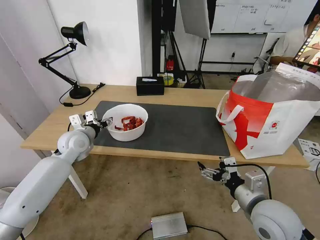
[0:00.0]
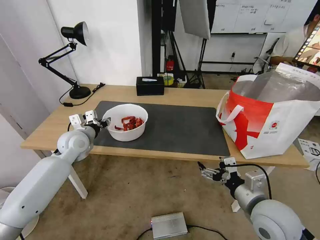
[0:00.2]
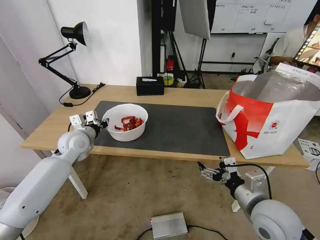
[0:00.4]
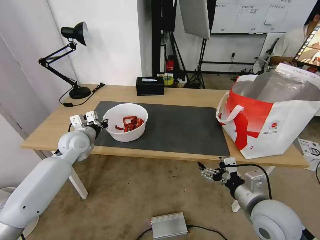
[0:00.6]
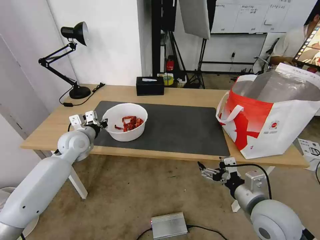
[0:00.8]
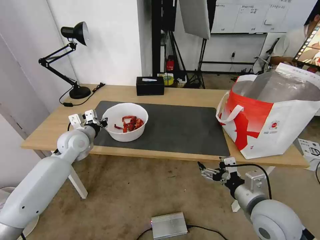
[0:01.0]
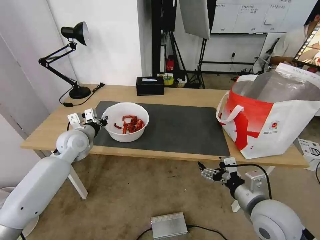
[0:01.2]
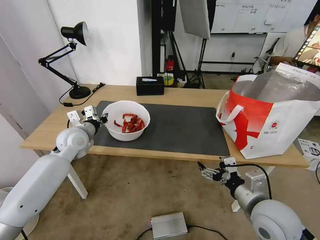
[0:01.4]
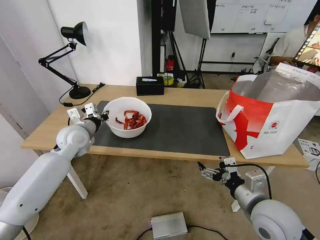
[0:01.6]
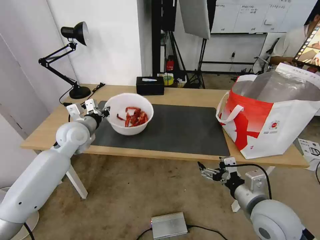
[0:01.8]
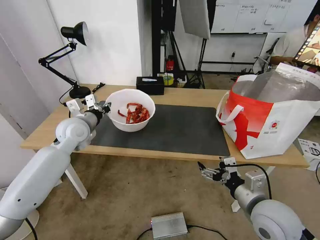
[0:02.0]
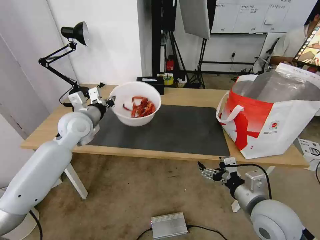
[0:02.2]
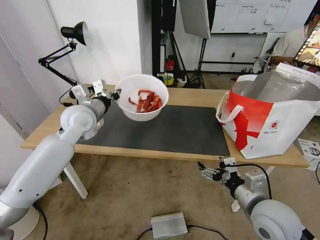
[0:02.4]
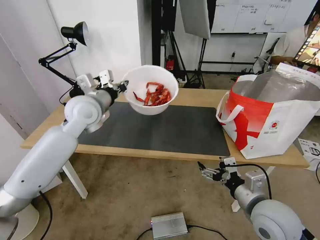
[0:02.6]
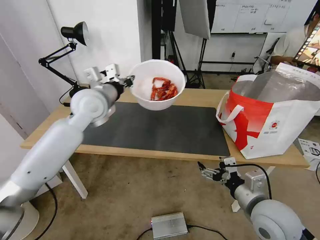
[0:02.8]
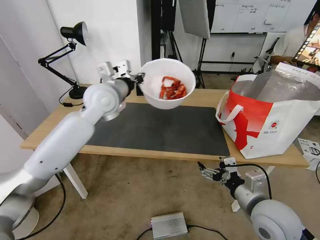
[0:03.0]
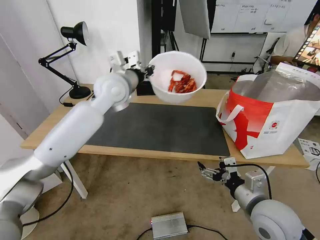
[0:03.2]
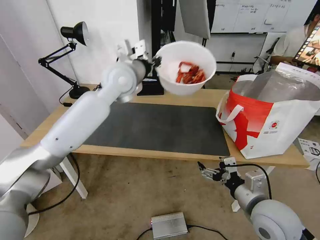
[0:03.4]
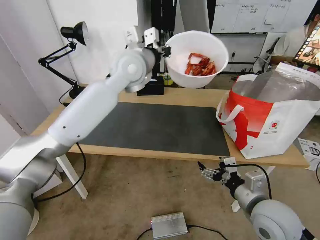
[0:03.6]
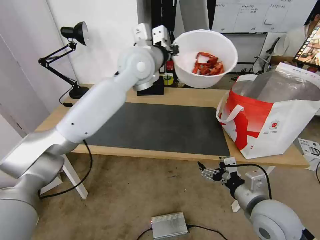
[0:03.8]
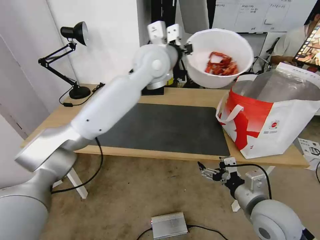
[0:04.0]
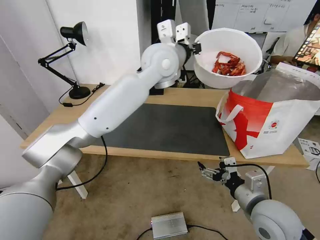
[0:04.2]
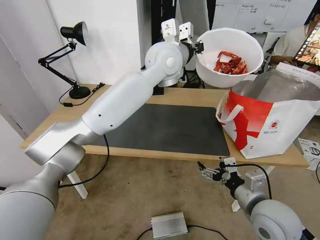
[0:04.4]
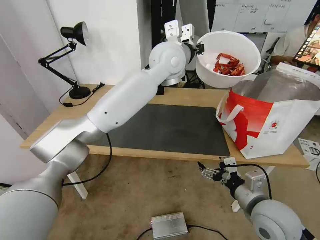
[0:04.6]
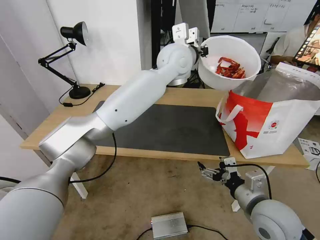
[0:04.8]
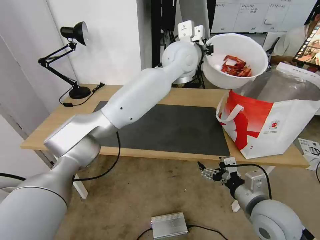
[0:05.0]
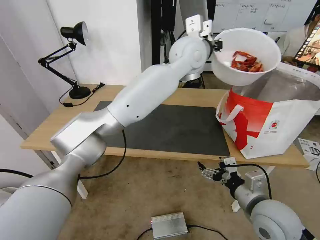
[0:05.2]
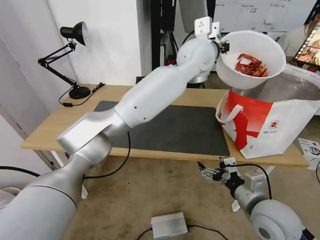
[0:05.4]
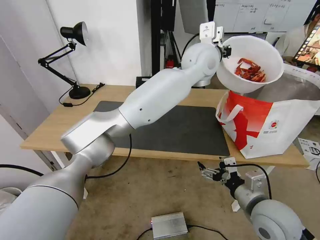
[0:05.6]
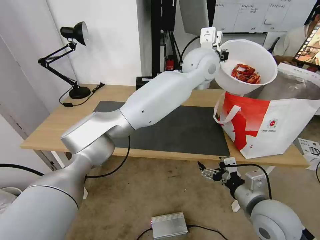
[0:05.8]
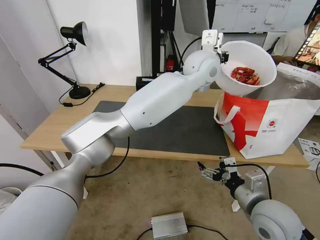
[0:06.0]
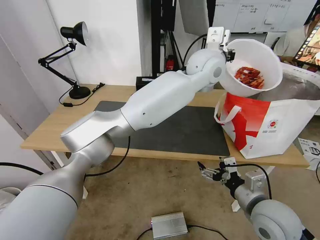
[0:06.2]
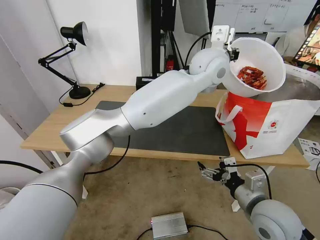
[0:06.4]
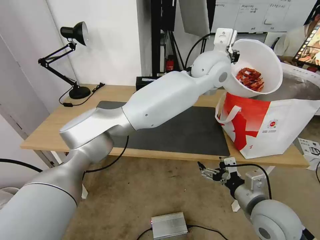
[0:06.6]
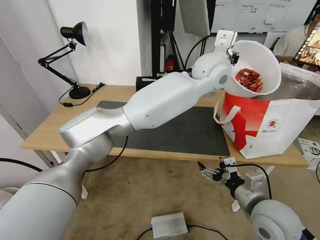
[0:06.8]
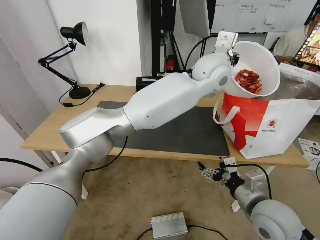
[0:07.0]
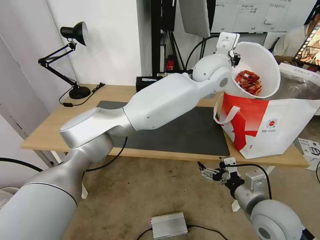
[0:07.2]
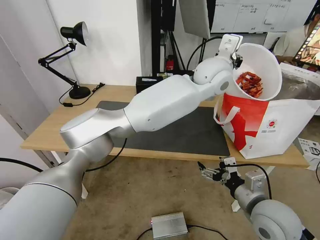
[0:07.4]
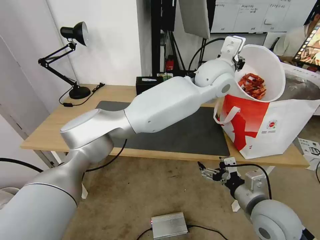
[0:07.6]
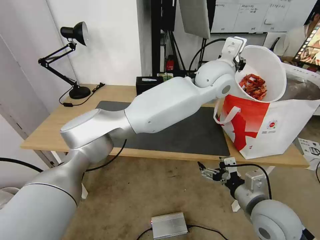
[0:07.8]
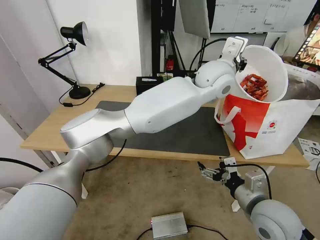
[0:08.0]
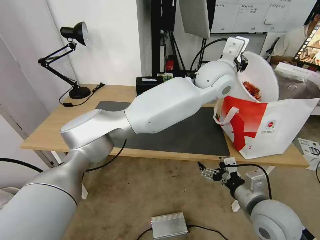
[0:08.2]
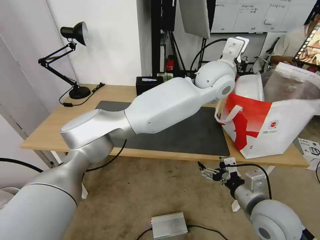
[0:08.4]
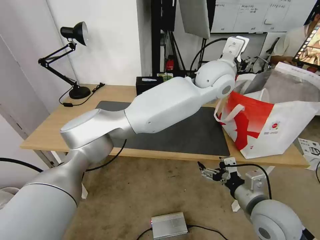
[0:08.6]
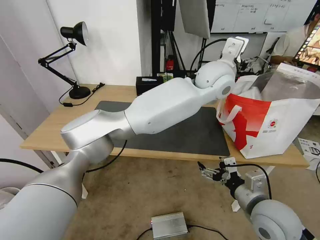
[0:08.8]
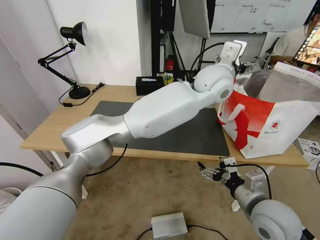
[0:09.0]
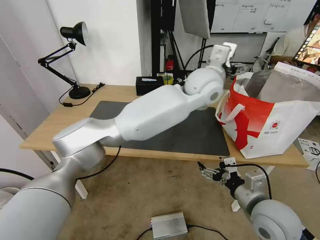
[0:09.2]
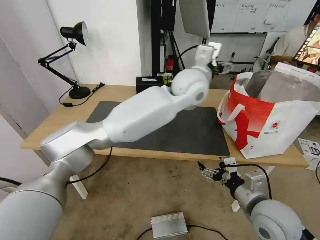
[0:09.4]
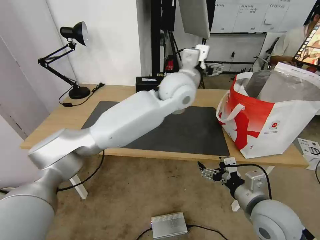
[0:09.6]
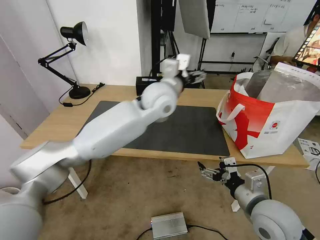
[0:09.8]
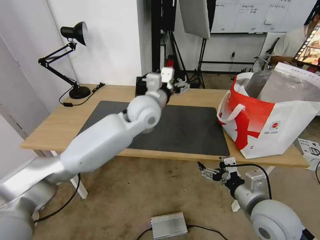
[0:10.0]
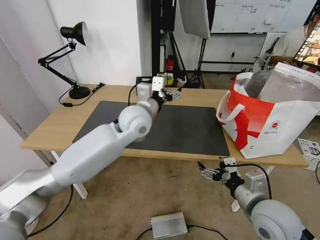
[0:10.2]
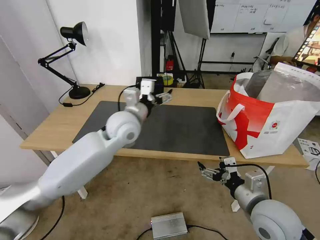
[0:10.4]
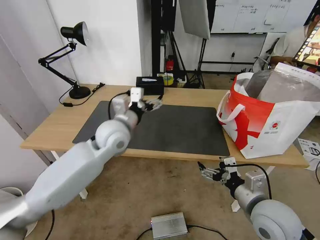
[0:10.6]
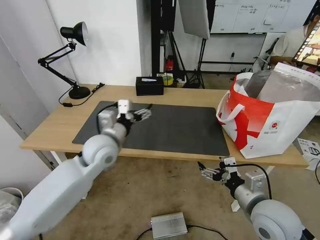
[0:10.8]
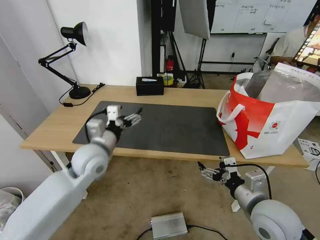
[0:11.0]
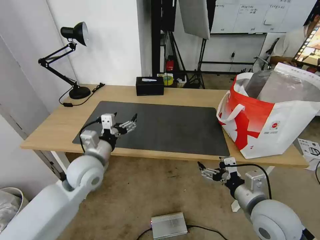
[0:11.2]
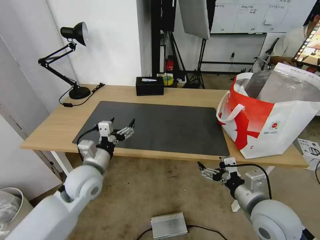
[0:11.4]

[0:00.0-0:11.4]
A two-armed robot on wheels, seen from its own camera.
Task of the whole recording: Pick up the trash from the table and place it into the takeout bag.
0.0 to 1.4 s: The left gripper closes up.
1.4 to 2.8 s: The left gripper goes some 15 cm upward and to the right.
2.8 to 4.2 s: The left gripper moves to the right and upward, roughly 20 cm.
4.2 to 5.6 s: The left gripper travels to the right by about 10 cm.
5.6 to 7.2 s: The grippers stay close to where they were, moving slightly.
7.2 to 8.6 s: The left gripper opens.
8.6 to 10.0 s: The left gripper is displaced to the left and downward by some 20 cm, and opens.
10.0 to 11.4 s: The left gripper travels to the left, backward and downward by approximately 25 cm.

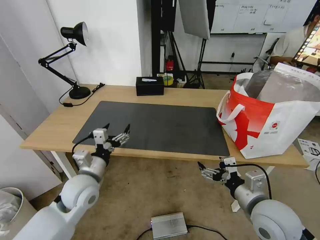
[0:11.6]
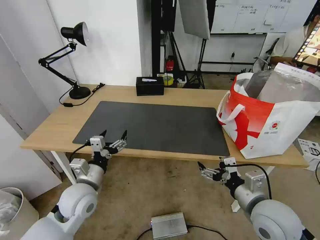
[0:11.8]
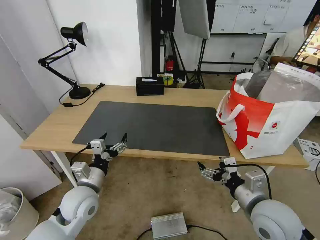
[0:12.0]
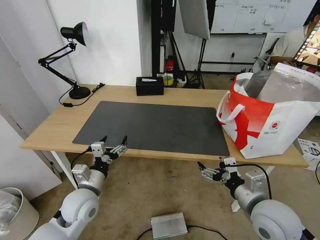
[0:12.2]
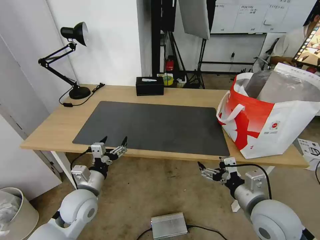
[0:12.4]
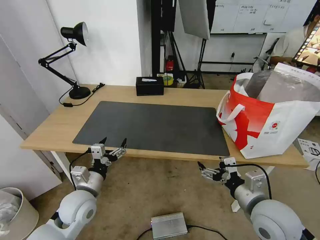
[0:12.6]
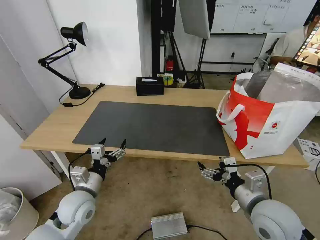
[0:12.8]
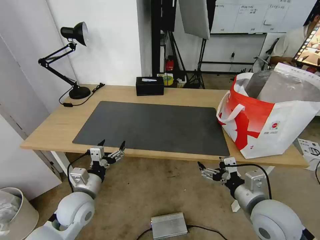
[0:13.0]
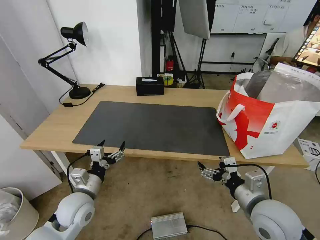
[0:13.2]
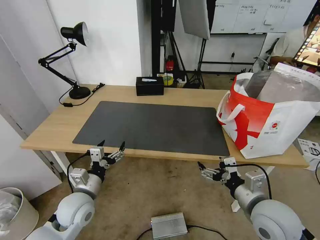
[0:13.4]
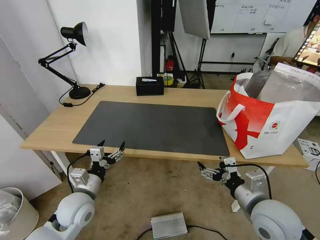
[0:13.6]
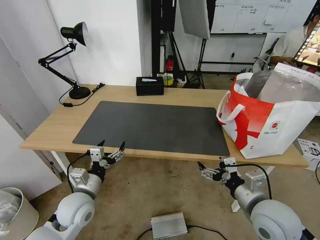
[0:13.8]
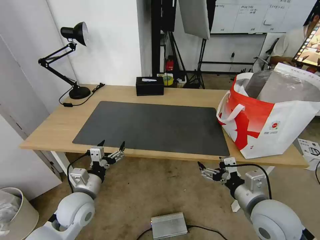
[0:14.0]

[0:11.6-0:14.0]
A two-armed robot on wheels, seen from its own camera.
Task of the whole recording: Pick up the trash from the table and place it into the takeout bag.
11.6 to 12.8 s: The left gripper changes place by approximately 5 cm.
12.8 to 14.0 s: Neither gripper changes place.

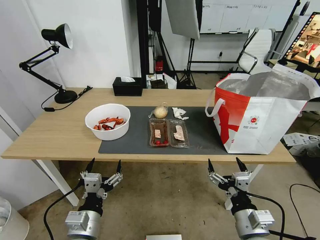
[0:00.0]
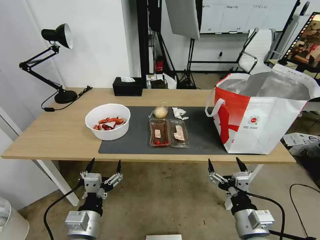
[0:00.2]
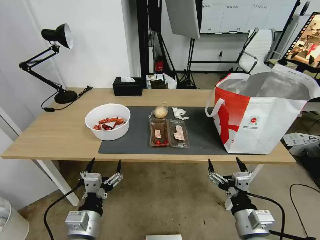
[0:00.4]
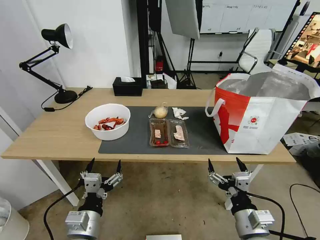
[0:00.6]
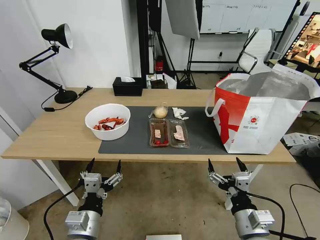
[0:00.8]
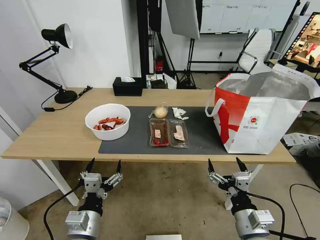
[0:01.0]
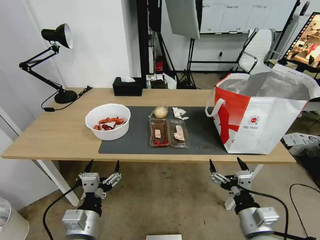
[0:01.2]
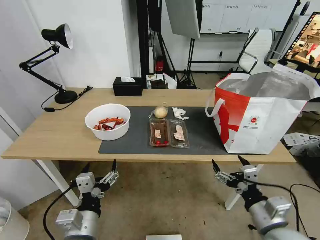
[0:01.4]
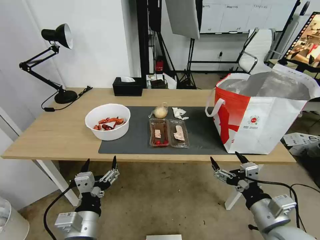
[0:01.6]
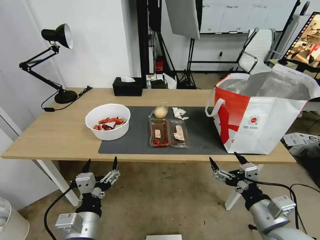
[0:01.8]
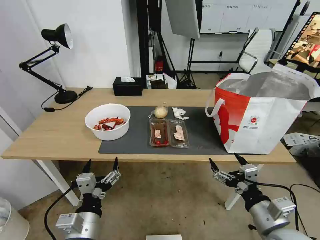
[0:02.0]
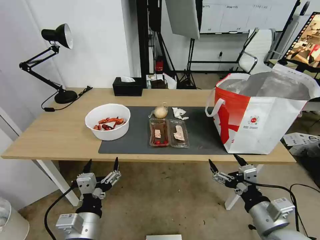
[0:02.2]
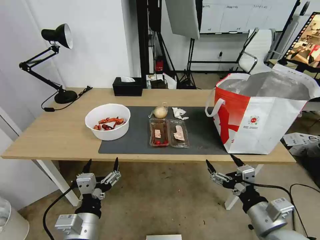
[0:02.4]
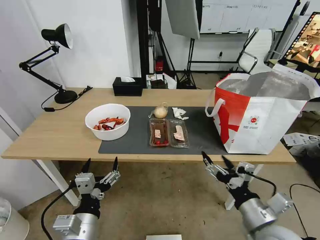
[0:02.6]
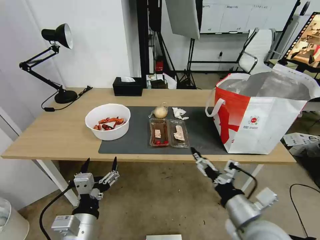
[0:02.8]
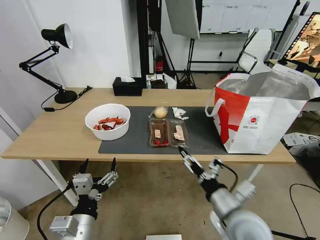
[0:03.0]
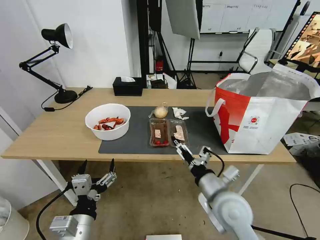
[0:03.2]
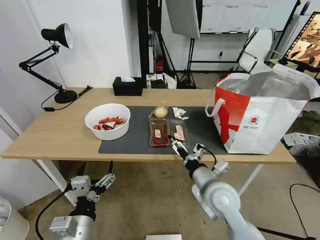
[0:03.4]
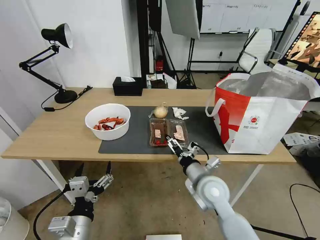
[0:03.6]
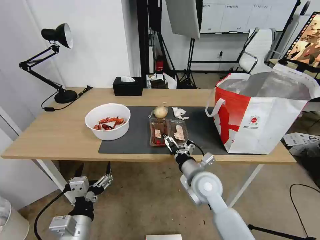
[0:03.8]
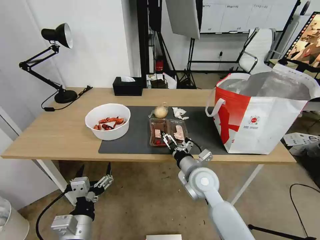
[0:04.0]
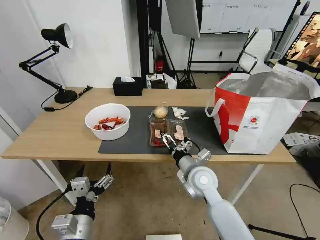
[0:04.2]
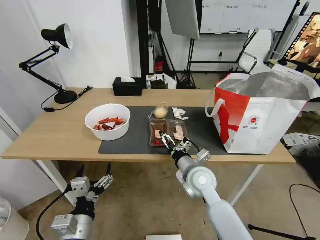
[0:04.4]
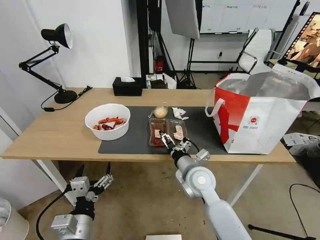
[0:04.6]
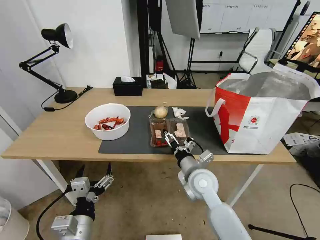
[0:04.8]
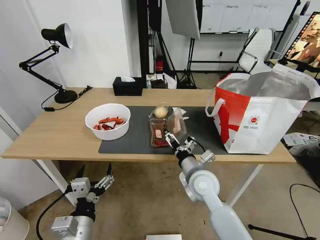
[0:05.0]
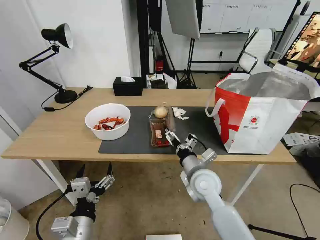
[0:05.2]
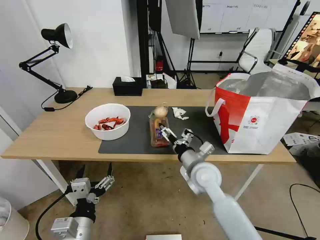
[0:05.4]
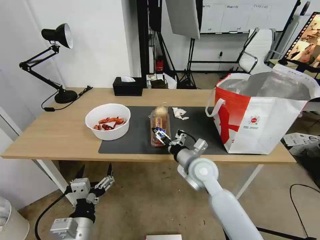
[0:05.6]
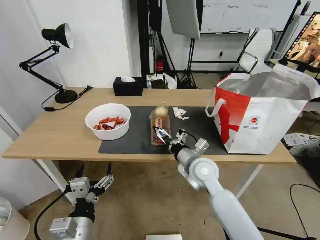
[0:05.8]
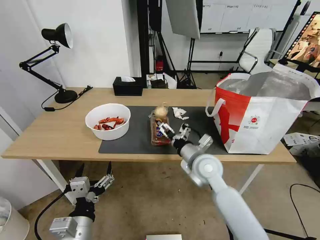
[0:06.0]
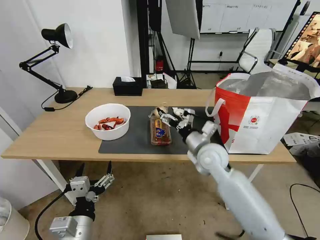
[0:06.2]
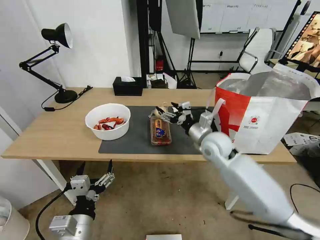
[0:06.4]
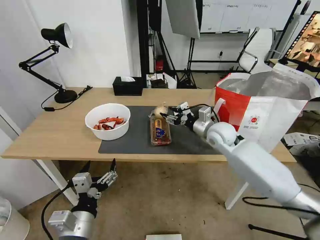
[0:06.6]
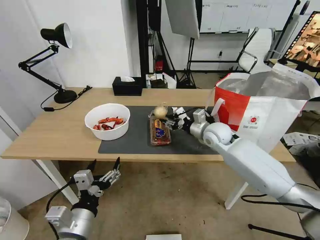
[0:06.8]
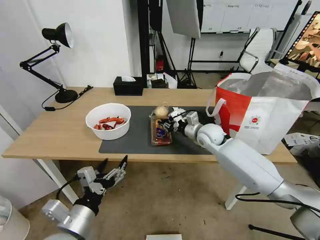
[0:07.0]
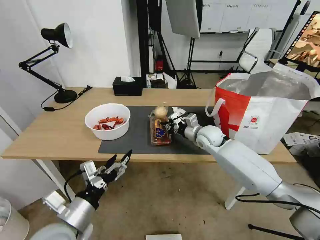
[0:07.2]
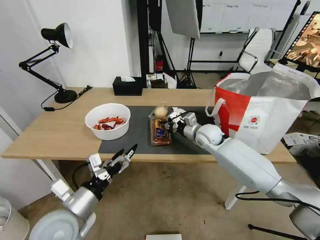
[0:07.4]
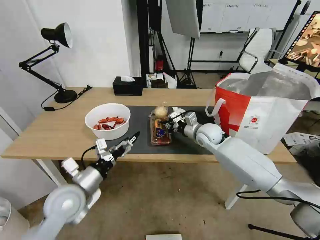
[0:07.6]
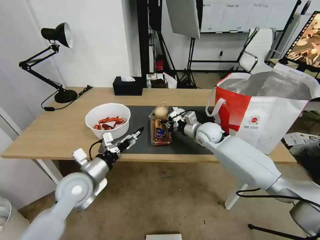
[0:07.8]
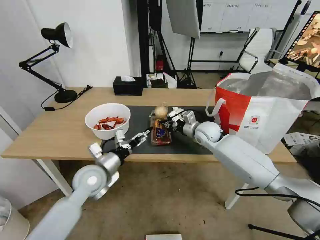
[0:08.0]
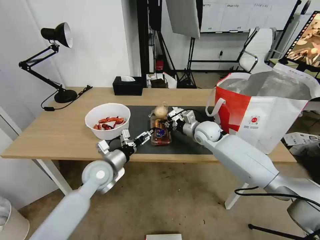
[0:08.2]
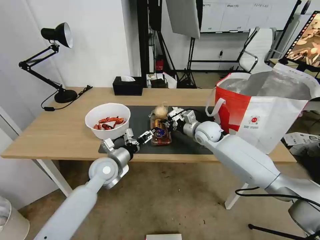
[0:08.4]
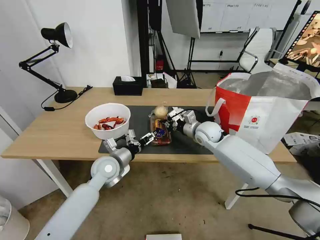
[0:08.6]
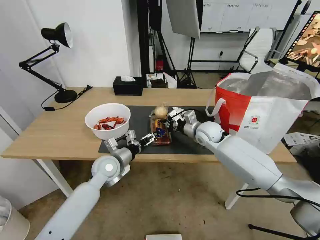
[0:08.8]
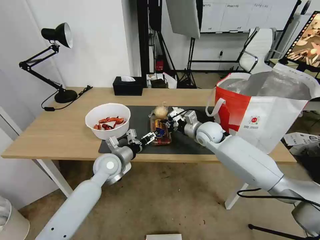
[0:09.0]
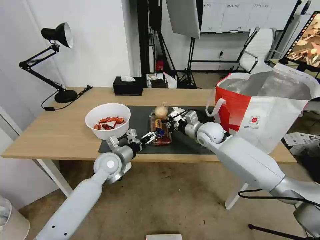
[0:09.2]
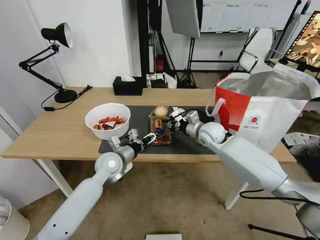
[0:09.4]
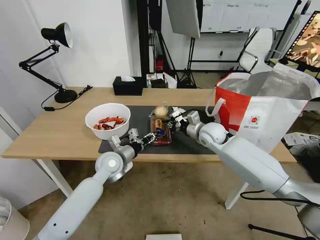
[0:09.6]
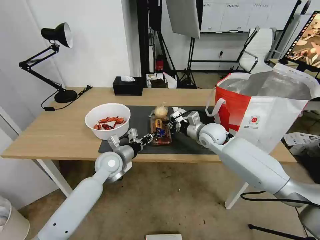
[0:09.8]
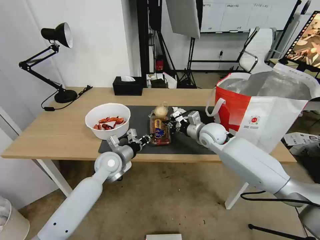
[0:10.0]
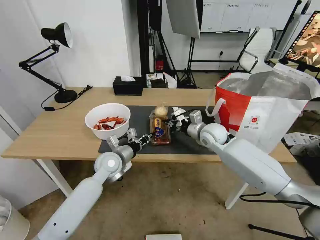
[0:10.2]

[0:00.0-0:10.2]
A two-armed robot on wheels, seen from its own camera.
Task of the whole recording: Pick up the trash from the table and place it into the takeout bag.
1.4 to 3.0 s: The right gripper shifts roughly 10 cm to the left.
3.0 to 4.4 s: The right gripper goes about 15 cm forward and to the left.
4.4 to 5.8 s: The grippers make only small movements.
5.8 to 7.2 s: The right gripper shifts roughly 15 cm forward, and closes. Meanwhile the left gripper moves roughly 5 cm.
7.2 to 8.8 s: The left gripper heads forward, covering about 20 cm.
8.8 to 10.2 s: The left gripper closes.
